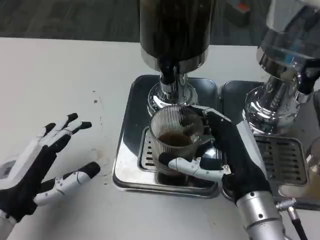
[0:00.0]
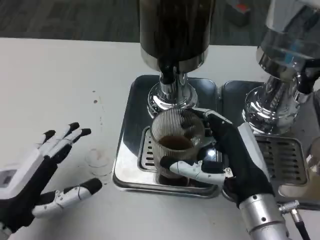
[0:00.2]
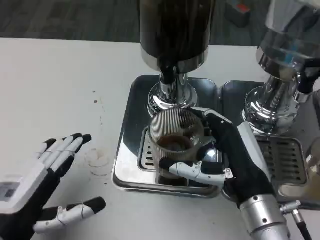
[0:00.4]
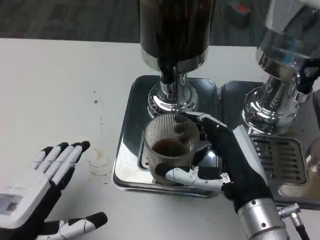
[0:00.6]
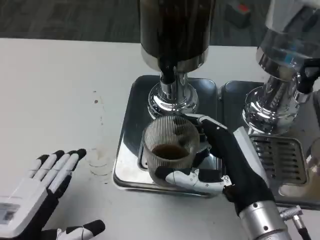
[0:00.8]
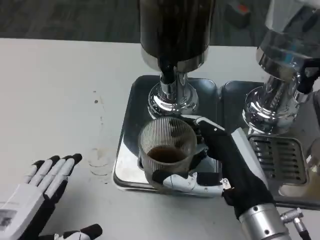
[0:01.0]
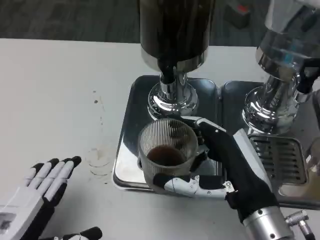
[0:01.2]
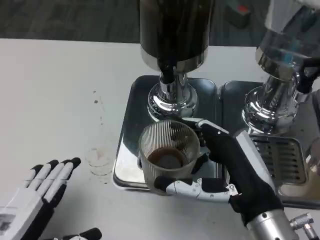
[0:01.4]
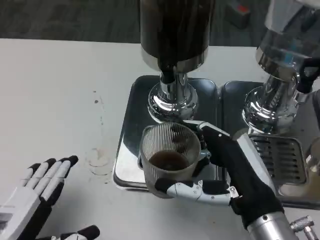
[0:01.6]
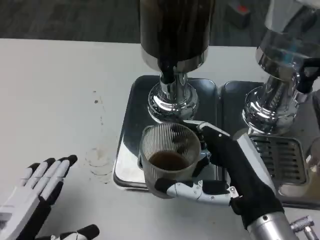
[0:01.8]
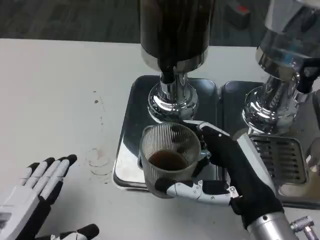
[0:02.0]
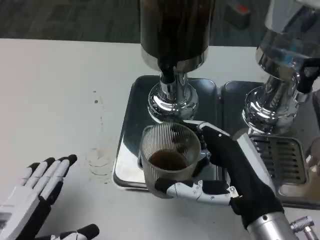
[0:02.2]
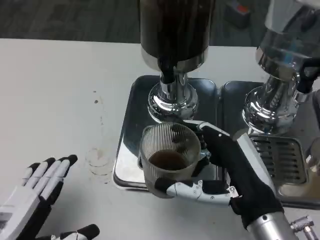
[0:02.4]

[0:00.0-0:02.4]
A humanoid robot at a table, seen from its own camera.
Task of the whole recording: Grasp the cup under the faucet to collect the drink, then remove the cup.
0:00.0 to 0:01.2: The left hand heads backward, covering some 5 cm.
0:01.2 to 0:02.4: Both hands stay about where they are.

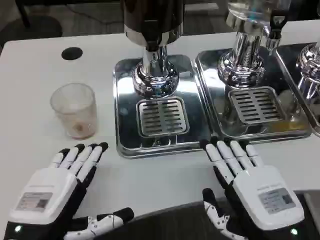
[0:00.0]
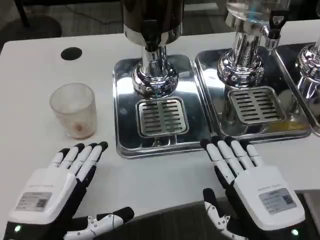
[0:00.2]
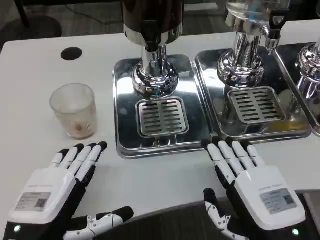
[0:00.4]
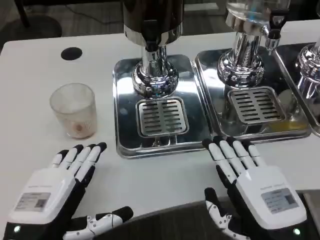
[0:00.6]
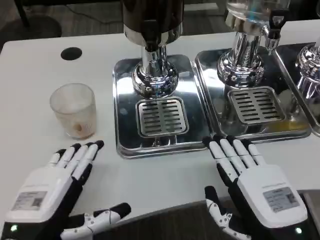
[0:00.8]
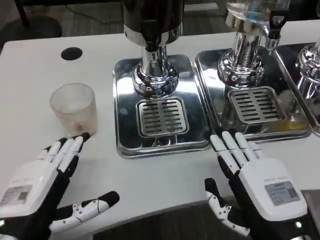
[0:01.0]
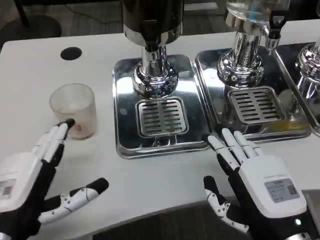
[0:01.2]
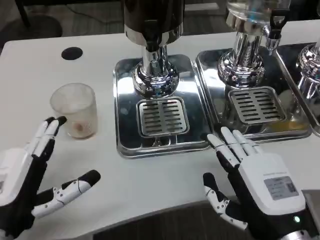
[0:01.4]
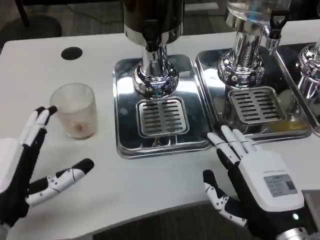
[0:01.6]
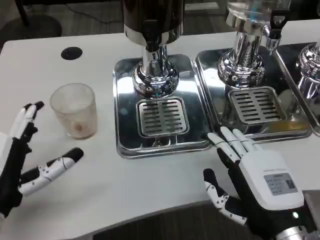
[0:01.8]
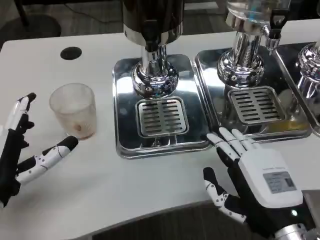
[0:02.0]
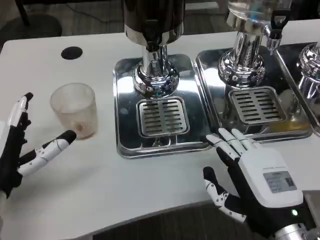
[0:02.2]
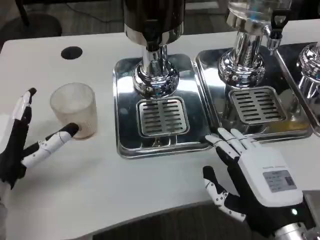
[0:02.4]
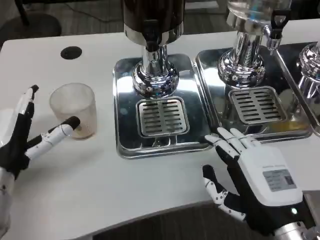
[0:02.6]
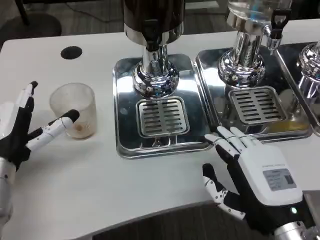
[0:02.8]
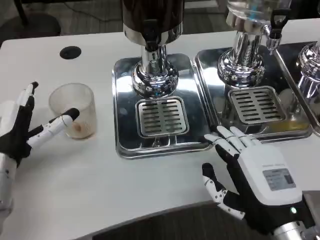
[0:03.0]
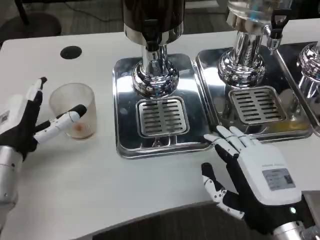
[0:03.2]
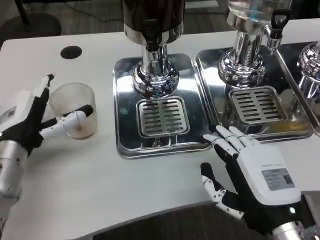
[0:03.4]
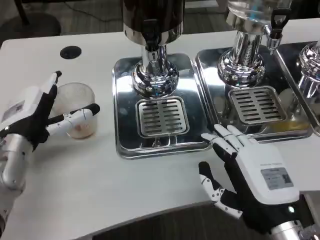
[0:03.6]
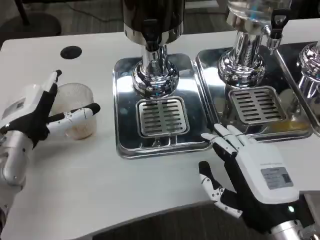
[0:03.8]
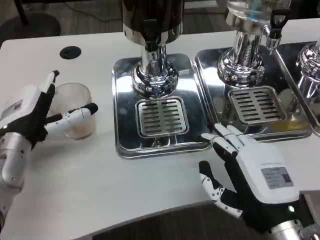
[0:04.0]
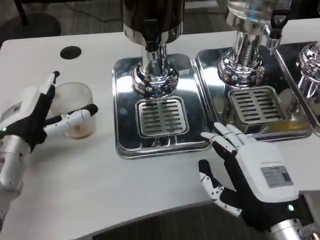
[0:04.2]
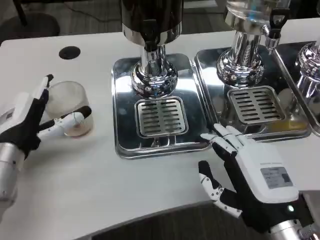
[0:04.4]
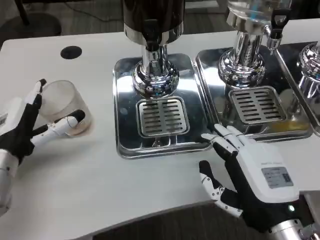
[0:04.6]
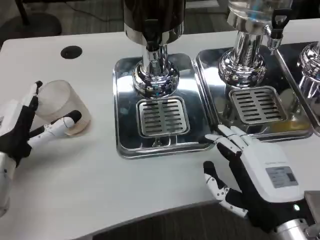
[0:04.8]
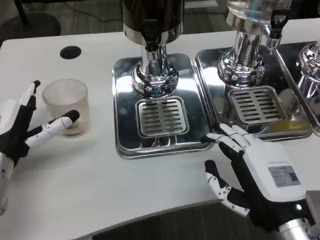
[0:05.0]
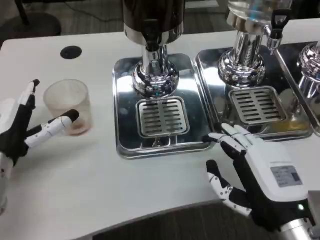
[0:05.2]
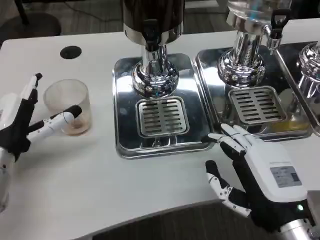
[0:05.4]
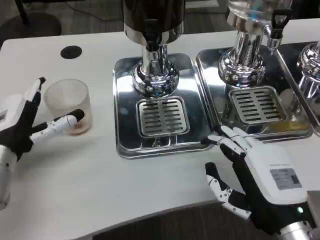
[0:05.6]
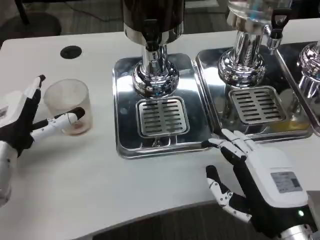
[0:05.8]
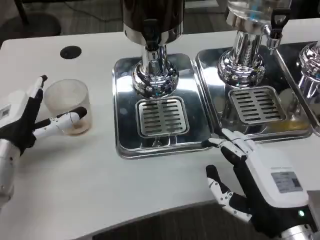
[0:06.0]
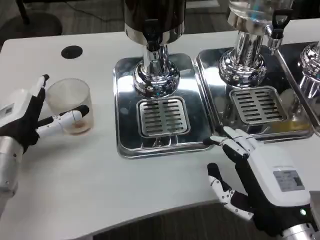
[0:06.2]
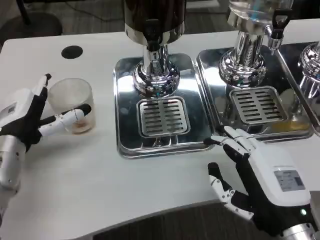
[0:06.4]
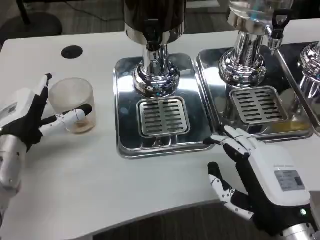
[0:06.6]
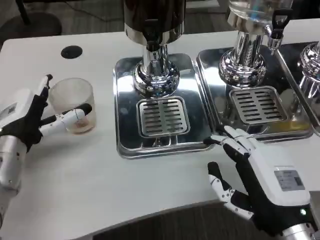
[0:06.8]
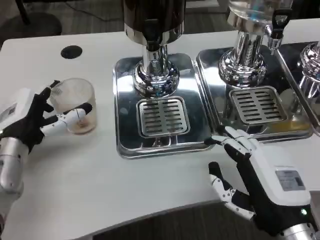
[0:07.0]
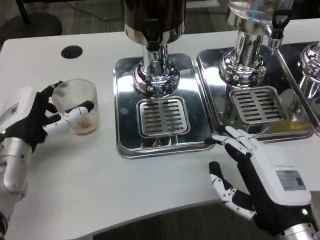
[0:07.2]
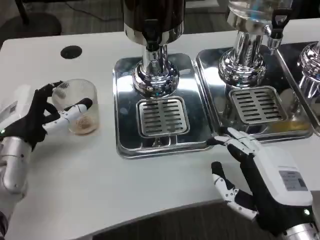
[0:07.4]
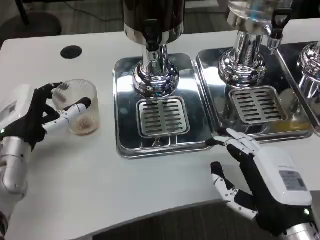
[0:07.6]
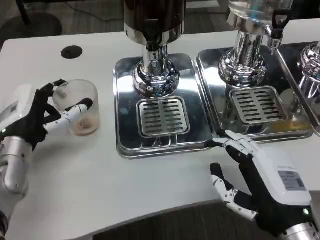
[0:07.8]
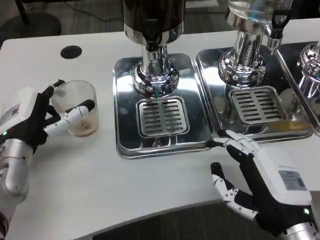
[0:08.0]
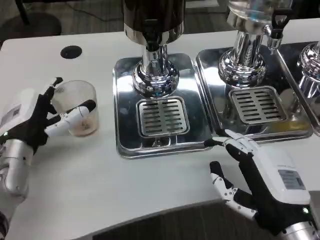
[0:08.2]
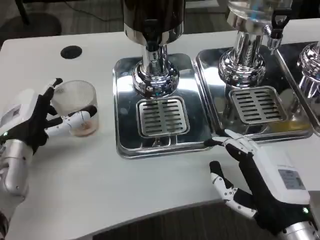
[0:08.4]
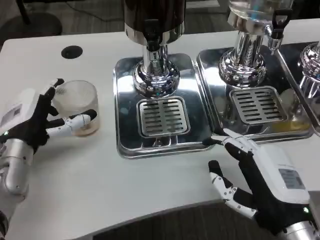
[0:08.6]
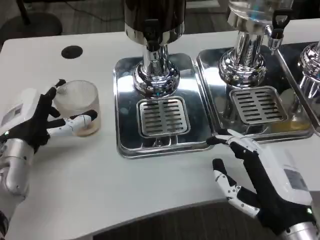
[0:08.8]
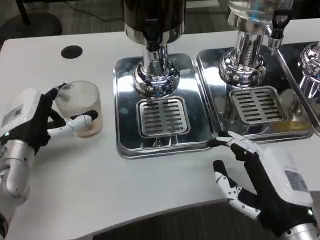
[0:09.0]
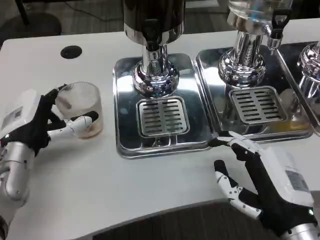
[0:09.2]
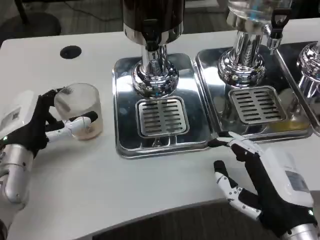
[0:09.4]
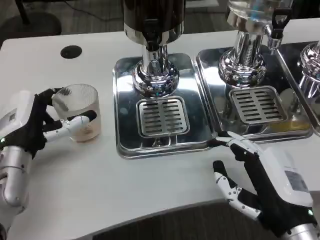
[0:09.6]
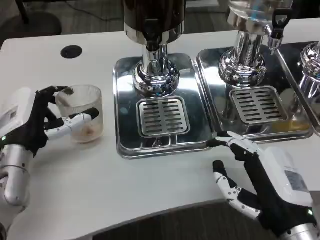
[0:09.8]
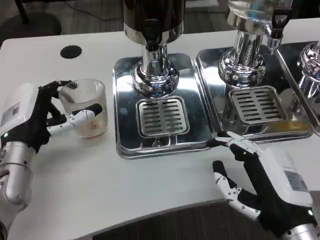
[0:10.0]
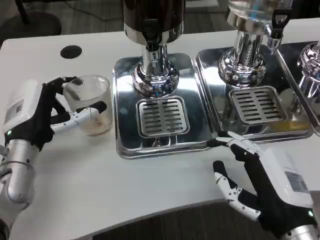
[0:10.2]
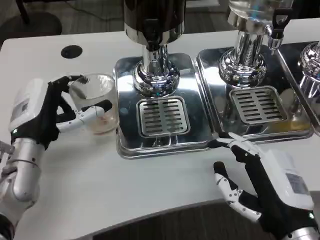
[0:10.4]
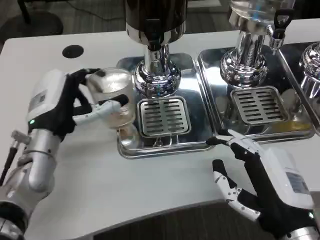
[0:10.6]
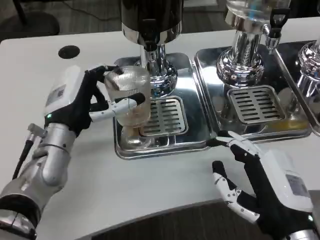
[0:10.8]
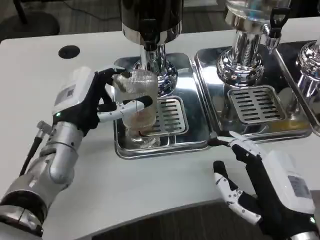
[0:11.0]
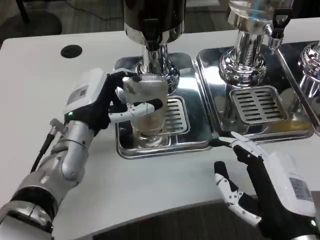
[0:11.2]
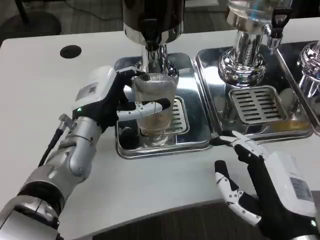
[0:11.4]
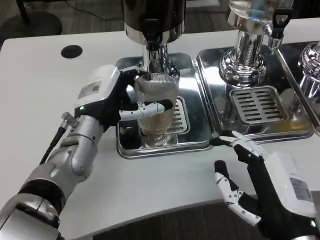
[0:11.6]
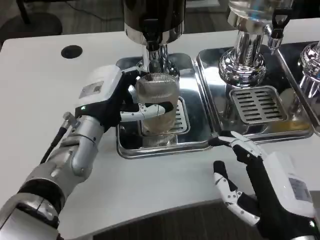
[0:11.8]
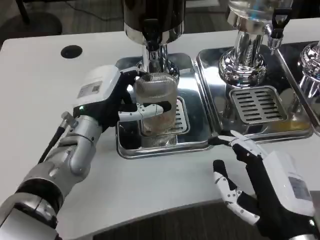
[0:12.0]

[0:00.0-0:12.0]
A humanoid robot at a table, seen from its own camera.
Task of the whole recording: Grasp the cup under the faucet to collect the drink, then remove the cup.
0:01.6 to 0:03.0: The left hand shifts about 10 cm forward.
0:03.0 to 0:10.4: The hands move only a little.
0:10.4 to 0:12.0: The left hand travels to the right by roughly 5 cm.

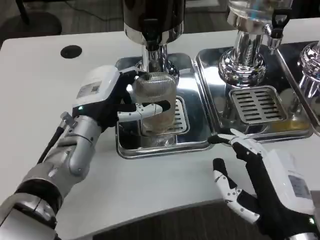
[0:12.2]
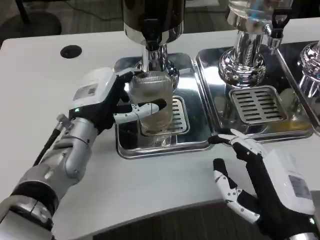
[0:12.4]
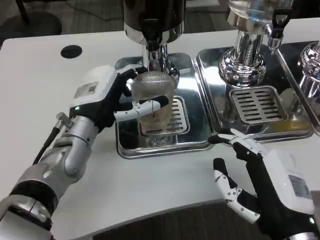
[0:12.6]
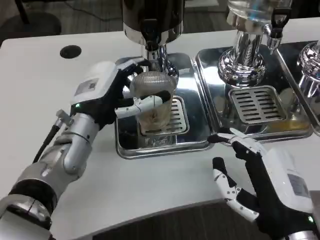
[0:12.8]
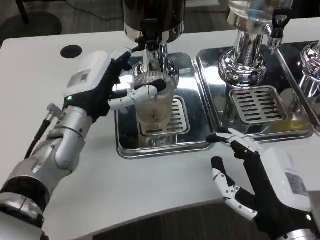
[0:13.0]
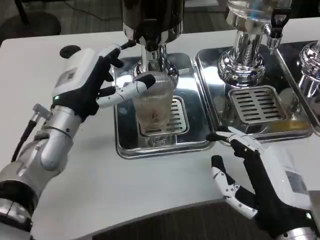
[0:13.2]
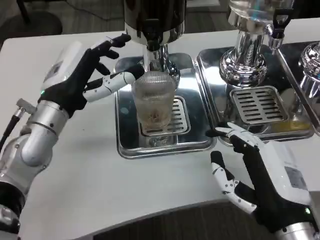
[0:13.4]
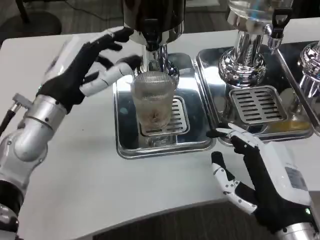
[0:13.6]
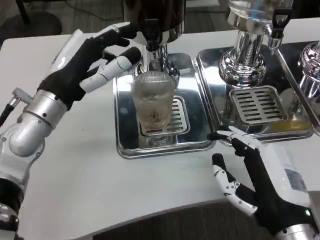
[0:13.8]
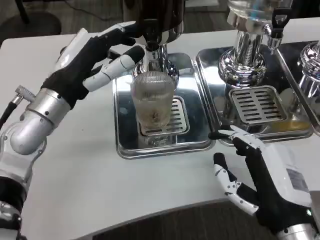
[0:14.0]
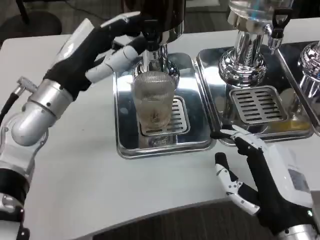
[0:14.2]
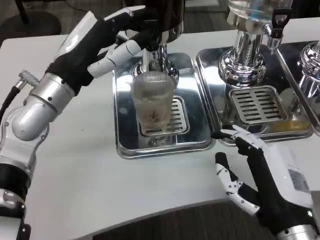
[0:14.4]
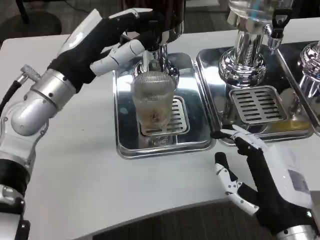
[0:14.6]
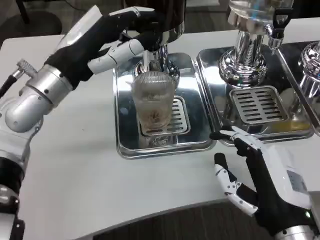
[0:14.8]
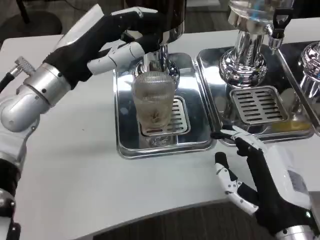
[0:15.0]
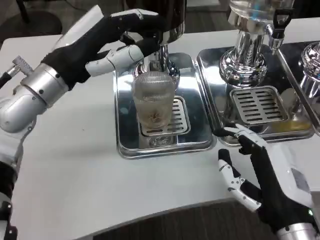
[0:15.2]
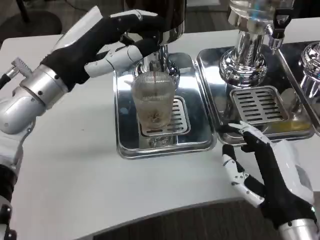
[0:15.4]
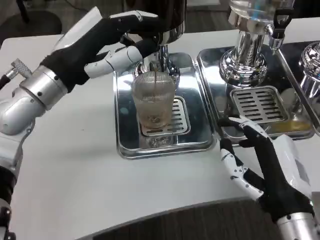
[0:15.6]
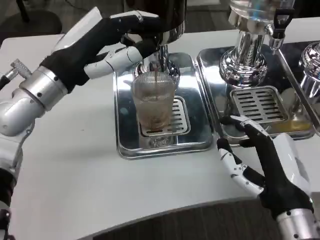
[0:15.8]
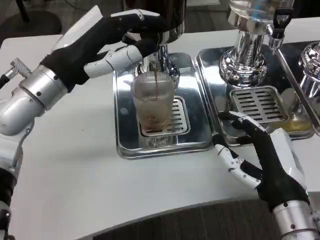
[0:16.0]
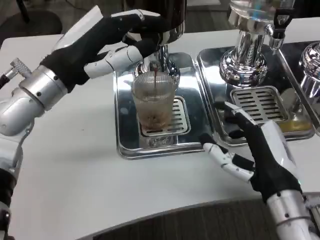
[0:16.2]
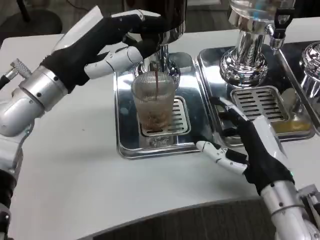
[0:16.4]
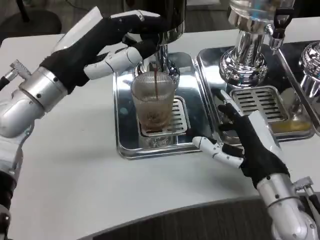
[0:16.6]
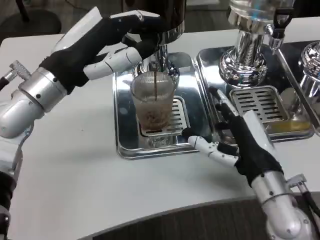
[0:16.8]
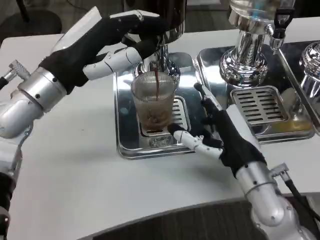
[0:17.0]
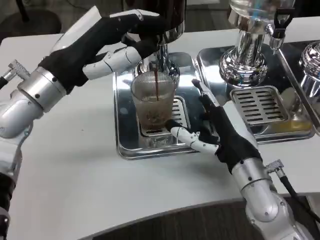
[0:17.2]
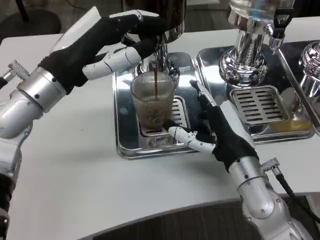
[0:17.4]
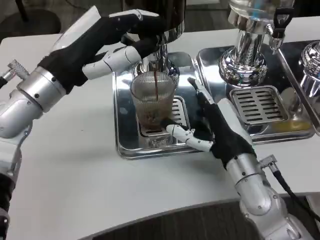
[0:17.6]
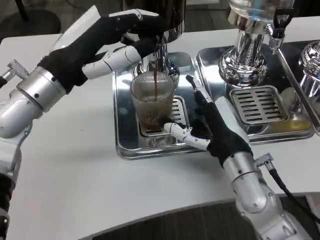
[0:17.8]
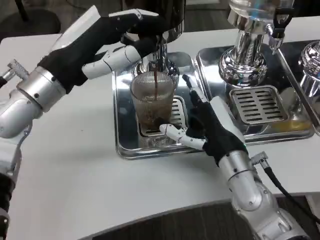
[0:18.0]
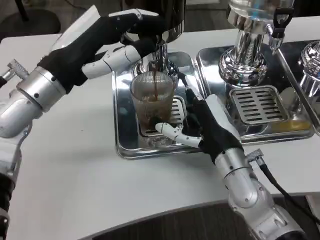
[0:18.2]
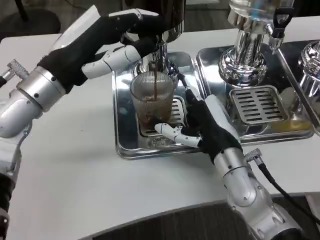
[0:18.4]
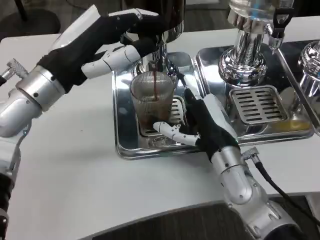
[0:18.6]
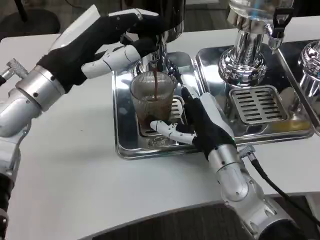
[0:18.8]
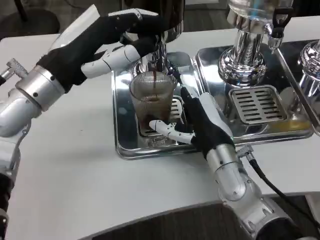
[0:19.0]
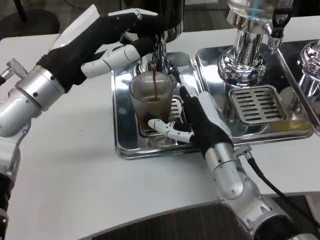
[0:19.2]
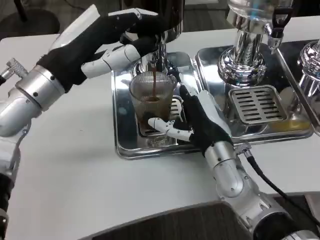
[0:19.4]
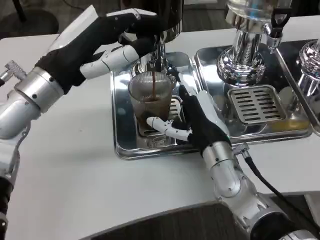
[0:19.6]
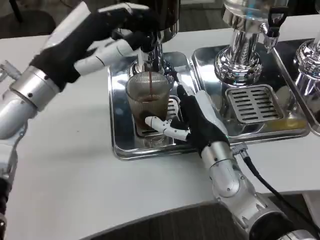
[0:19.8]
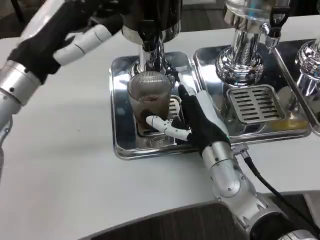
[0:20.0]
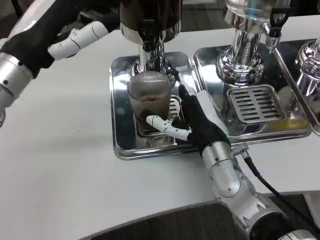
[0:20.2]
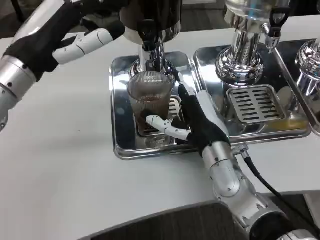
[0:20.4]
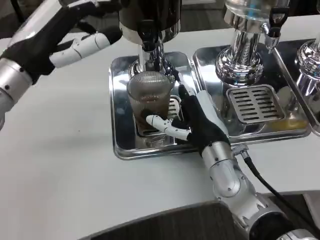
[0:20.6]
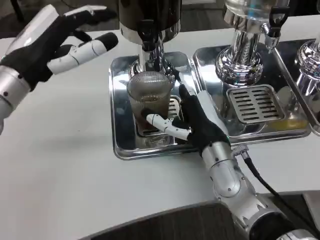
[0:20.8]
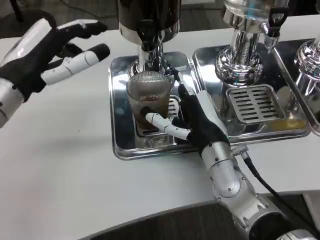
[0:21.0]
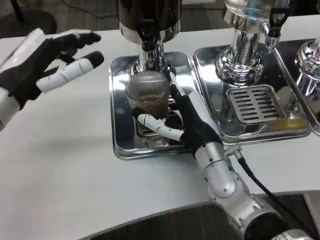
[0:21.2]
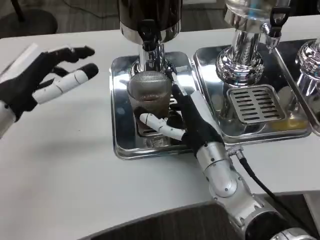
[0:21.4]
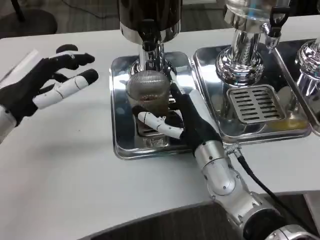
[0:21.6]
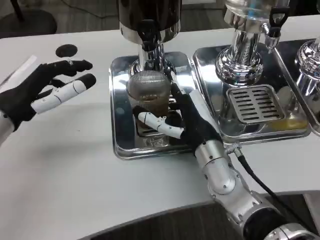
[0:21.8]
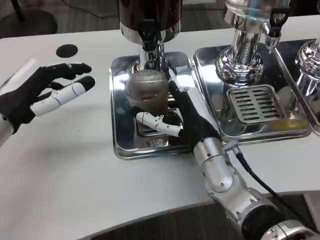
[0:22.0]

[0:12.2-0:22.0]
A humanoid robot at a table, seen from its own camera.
Task of the whole recording: Grasp the cup under the faucet to collect the drink, then remove the cup.
0:12.2 to 0:13.6: The left hand shifts roughly 5 cm to the left.
0:13.6 to 0:15.0: The left hand goes approximately 5 cm upward.
0:15.0 to 0:16.4: The right hand shifts approximately 5 cm forward.
0:16.4 to 0:17.8: The right hand moves forward, approximately 5 cm.
0:17.8 to 0:19.2: The hands move only a little.
0:20.6 to 0:22.0: The left hand shifts roughly 5 cm downward.
